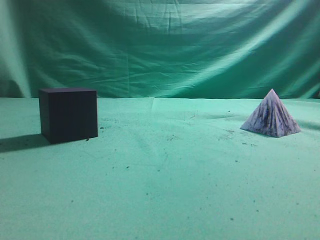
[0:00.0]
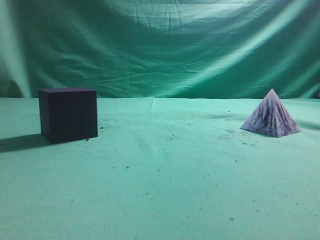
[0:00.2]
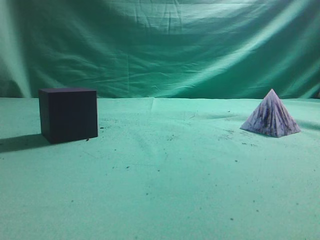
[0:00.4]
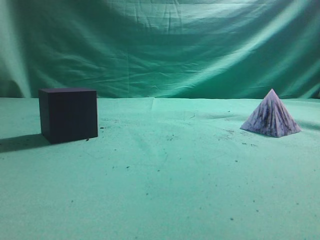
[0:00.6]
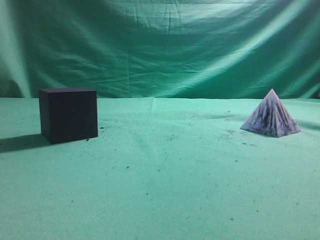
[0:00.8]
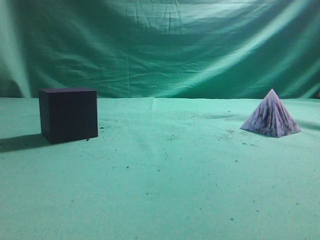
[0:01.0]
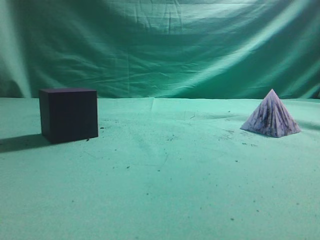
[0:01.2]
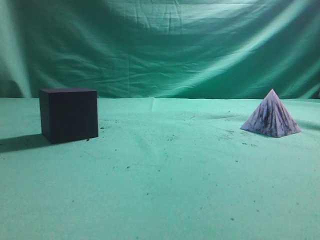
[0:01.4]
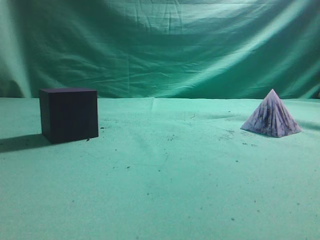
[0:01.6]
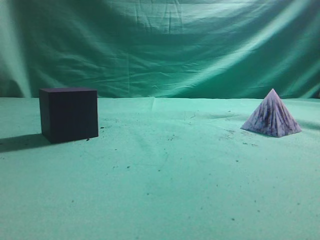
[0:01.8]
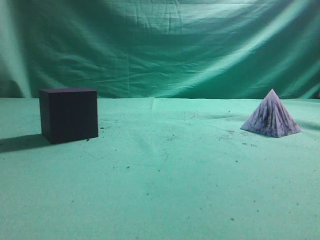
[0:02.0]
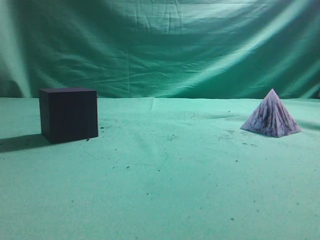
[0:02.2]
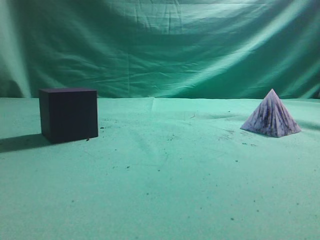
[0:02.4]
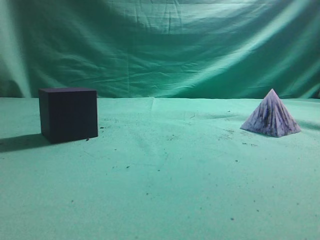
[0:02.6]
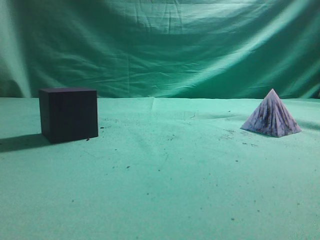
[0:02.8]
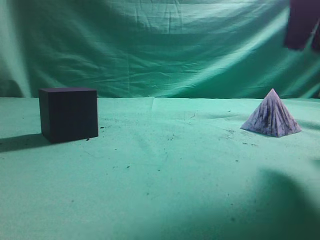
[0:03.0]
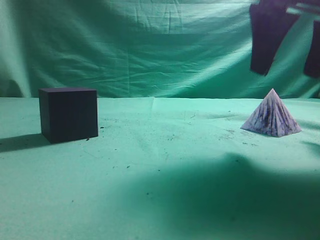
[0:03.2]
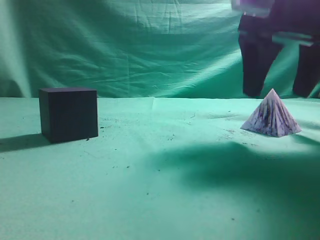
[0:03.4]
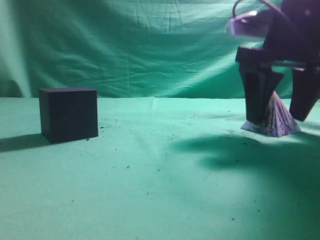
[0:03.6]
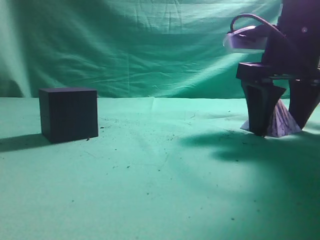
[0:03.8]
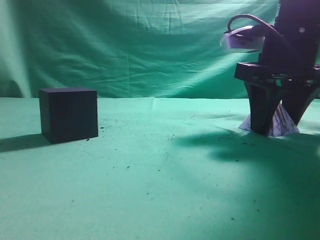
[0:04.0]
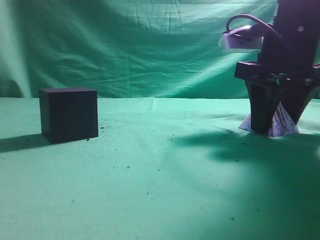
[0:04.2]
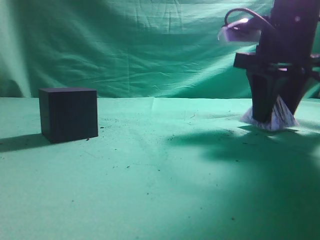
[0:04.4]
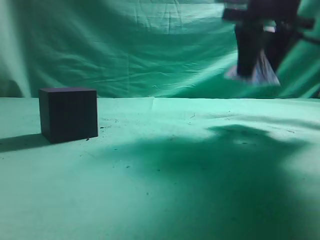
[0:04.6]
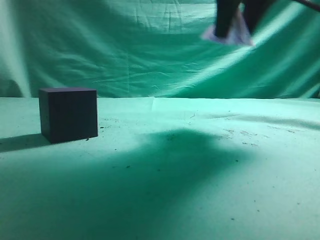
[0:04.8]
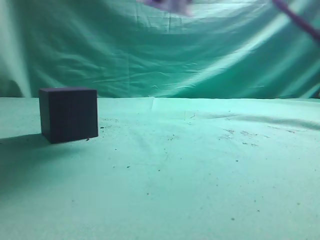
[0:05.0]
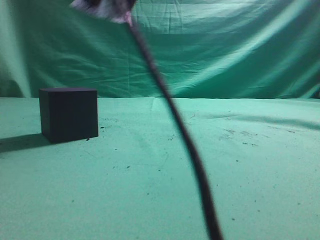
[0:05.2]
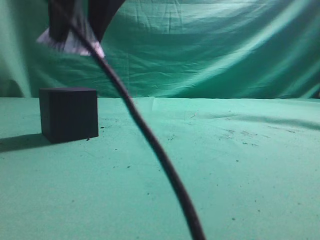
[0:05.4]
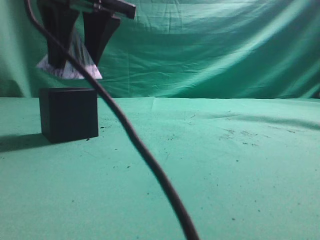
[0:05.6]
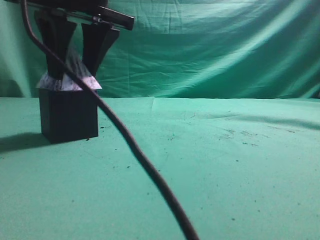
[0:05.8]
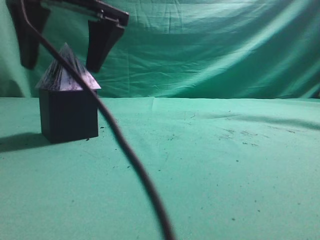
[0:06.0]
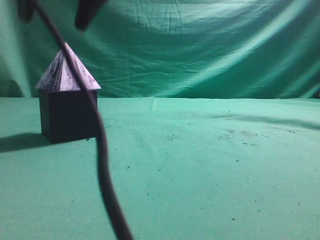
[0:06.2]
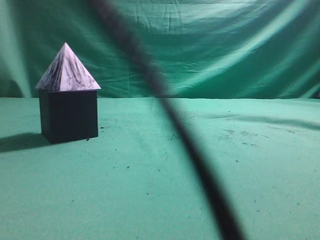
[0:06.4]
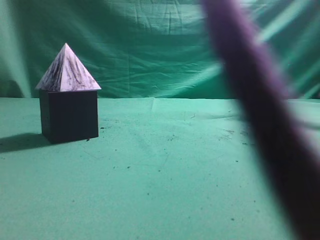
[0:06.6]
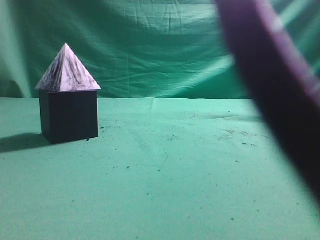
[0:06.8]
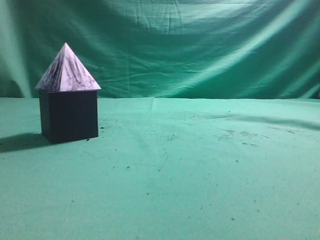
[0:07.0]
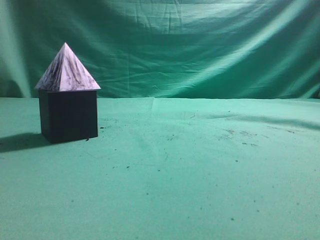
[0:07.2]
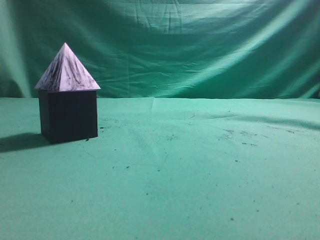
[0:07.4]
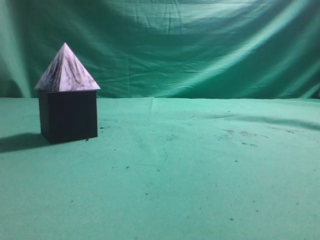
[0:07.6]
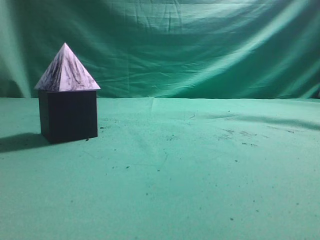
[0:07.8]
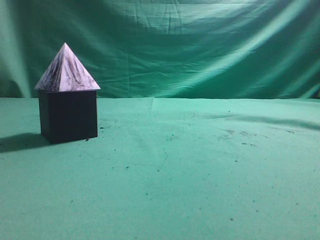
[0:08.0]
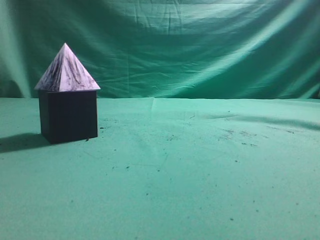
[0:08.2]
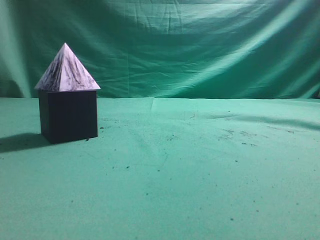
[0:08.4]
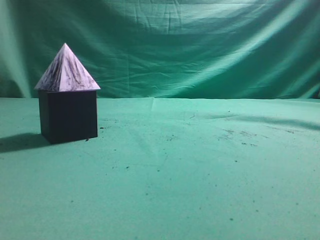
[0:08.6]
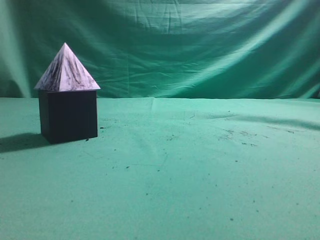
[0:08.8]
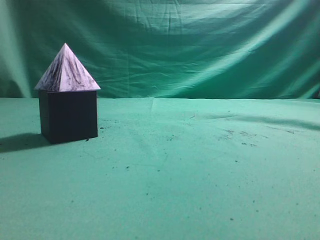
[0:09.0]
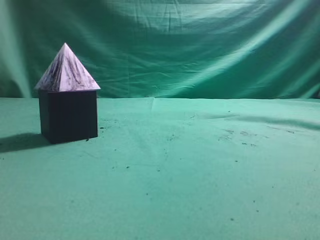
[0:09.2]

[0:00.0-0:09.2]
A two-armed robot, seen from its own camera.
Task of the whole recording: pick up the square pyramid from the table and place it on the cube block.
Step, 0:00.0 to 0:04.4: Grasp the triangular block.
Step, 0:04.6 to 0:06.0: Place the block onto the cube-shaped block.
0:01.6 to 0:03.0: The right gripper goes some 20 cm forward and to the left, and opens.
0:03.0 to 0:04.6: The right gripper heads forward, covering some 10 cm, and opens, then closes again.
0:04.6 to 0:06.2: The right gripper moves to the left, roughly 25 cm.
0:06.2 to 0:07.6: The right gripper is displaced to the right and backward by about 40 cm, and closes.
